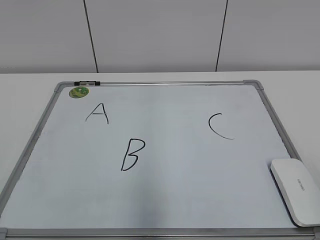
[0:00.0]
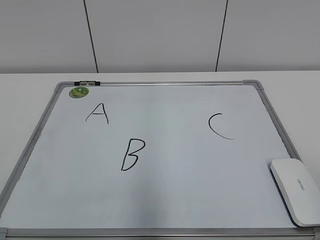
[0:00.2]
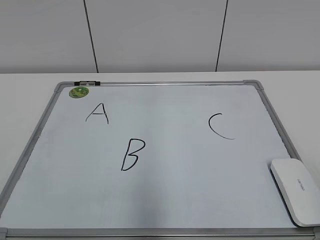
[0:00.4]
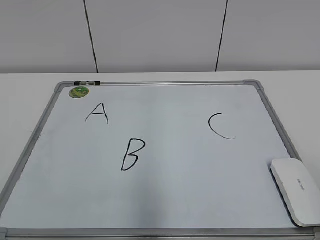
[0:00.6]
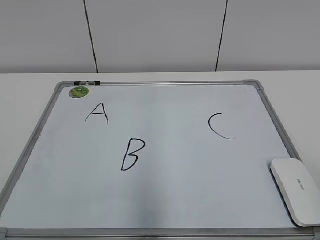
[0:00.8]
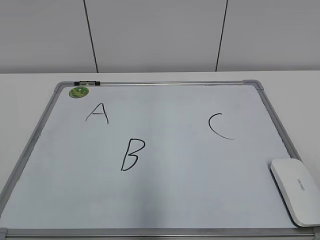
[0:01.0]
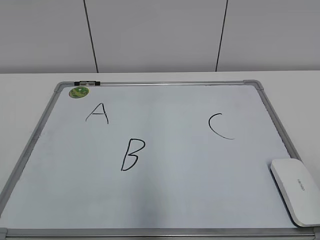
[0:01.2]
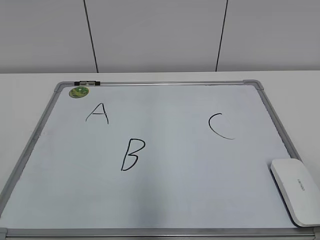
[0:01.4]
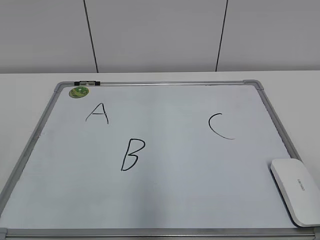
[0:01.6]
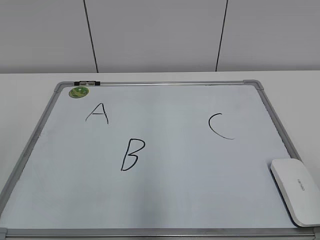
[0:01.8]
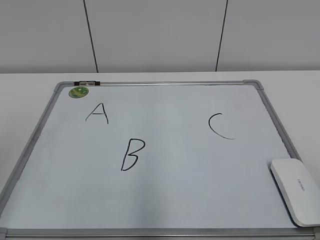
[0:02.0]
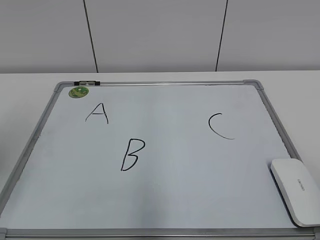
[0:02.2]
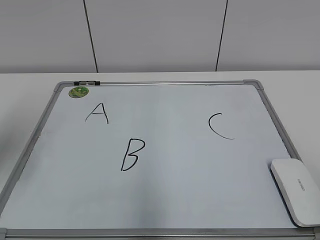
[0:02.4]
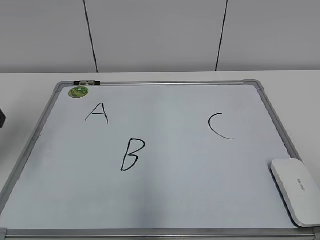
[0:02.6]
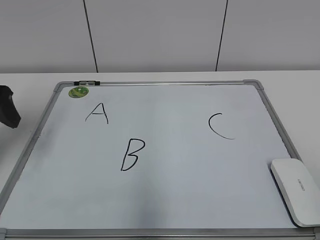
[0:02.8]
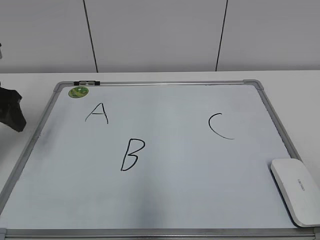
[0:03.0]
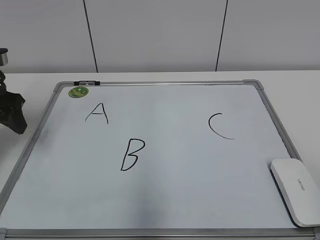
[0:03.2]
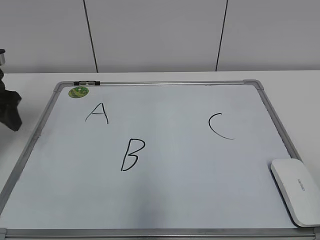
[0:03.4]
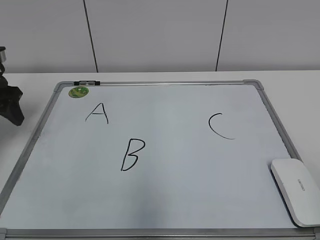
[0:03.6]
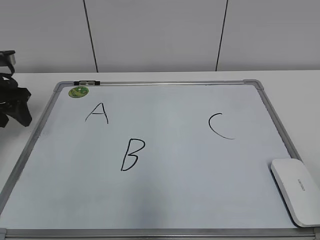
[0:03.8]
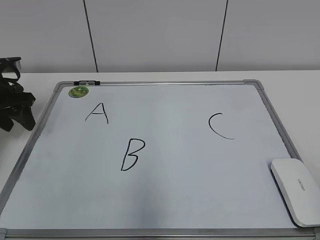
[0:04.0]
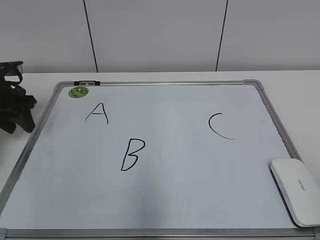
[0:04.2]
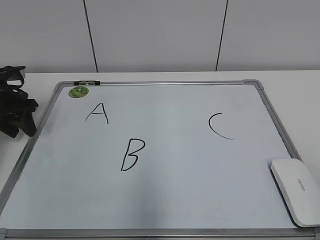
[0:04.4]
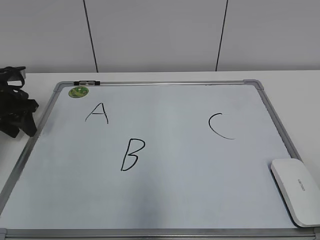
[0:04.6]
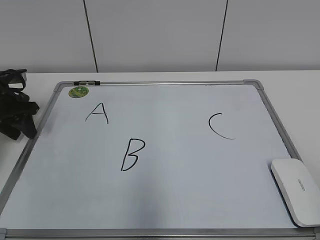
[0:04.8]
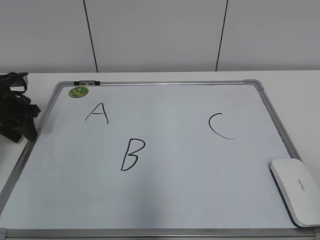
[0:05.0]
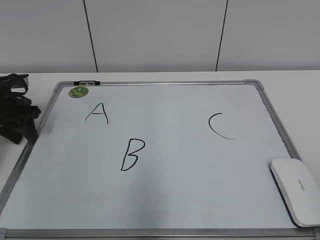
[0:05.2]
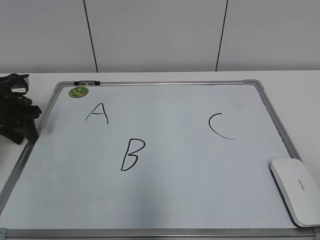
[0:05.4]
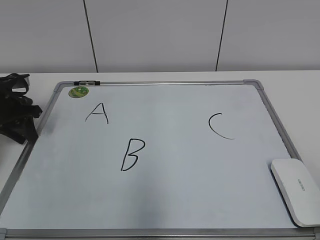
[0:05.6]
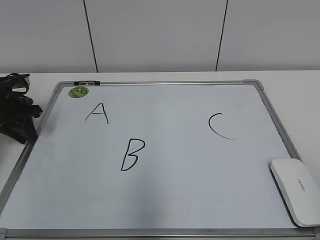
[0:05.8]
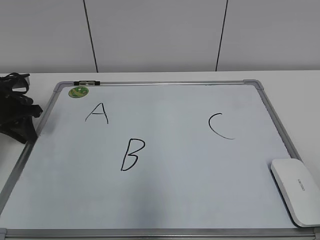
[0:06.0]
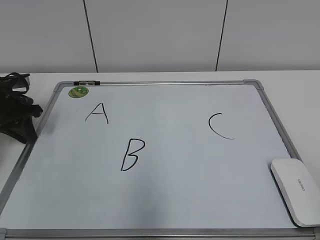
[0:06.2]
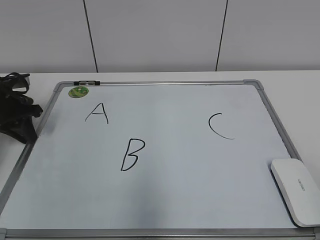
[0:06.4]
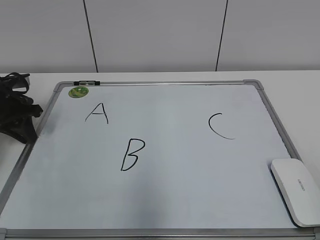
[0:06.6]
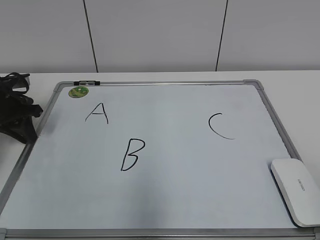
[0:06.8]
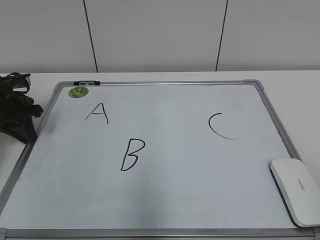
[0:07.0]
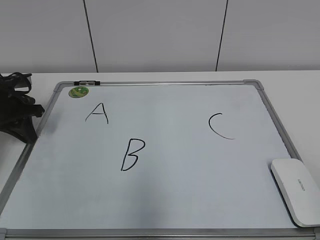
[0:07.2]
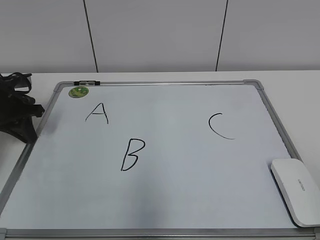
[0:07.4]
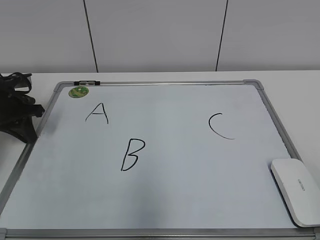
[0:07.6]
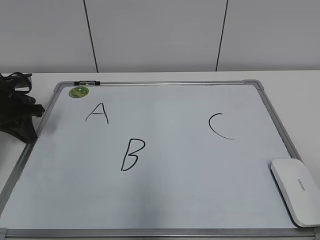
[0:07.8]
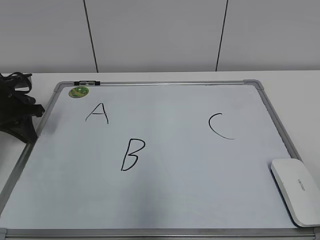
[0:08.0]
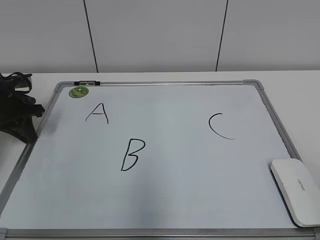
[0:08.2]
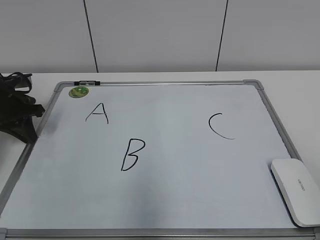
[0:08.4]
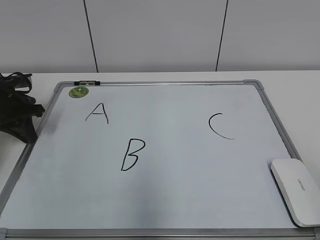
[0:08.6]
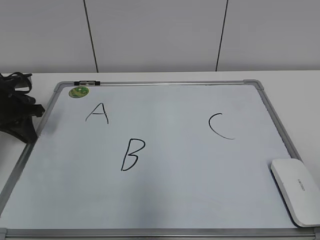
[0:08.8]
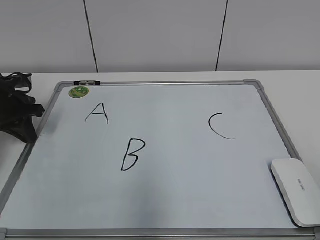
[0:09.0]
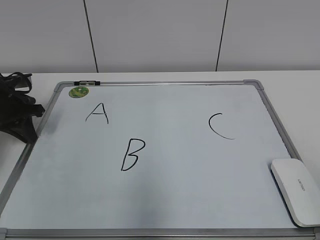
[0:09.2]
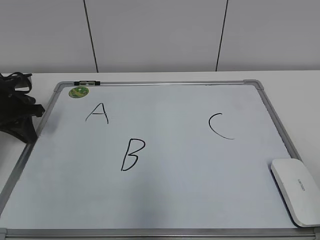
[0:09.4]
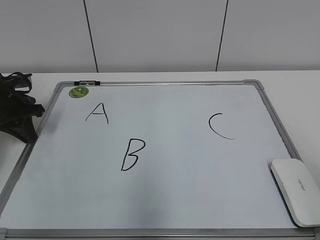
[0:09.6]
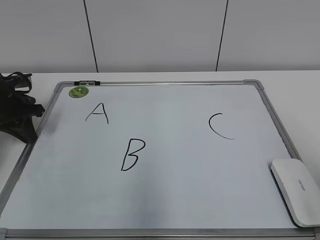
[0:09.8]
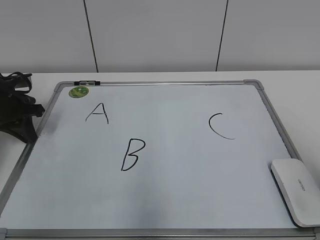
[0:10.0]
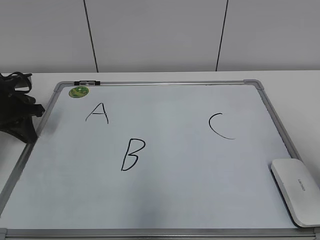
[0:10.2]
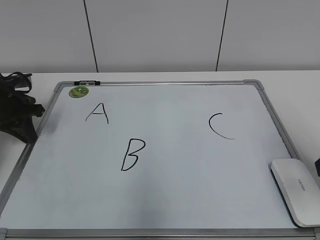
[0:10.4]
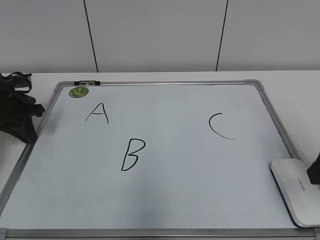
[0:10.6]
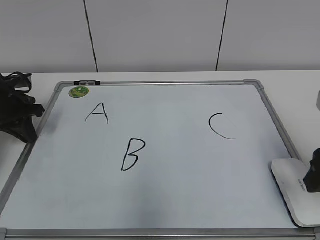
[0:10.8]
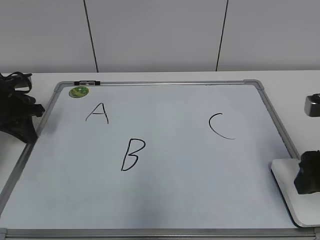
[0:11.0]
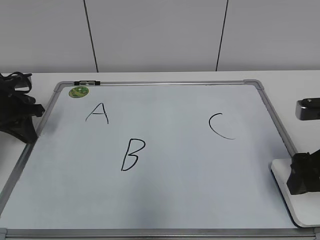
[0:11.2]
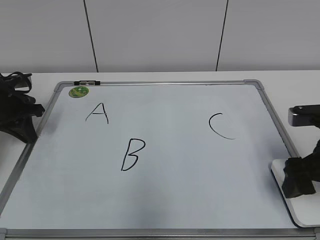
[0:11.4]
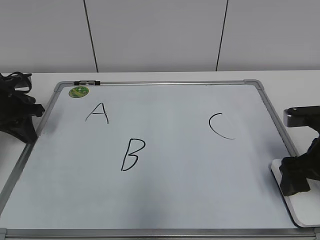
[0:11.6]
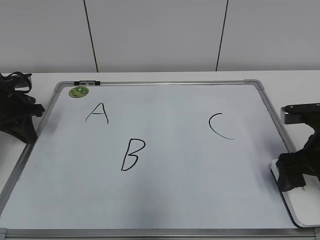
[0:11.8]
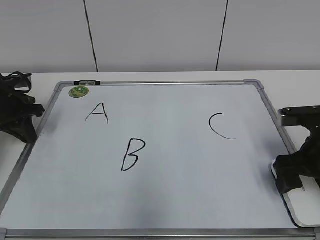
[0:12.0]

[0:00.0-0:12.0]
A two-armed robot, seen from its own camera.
Task of the whole recording: pick up the eraser on the blackboard and erase the letter "B".
Step, 0:00.0 to 0:07.0: Hold the drawing board steady with your left hand.
0:01.6 to 0:03.0: The left gripper shifts some 30 cm forward.
0:03.0 to 0:04.4: The left gripper goes roughly 10 cm forward and downward.
0:04.4 to 0:06.0: The left gripper closes up.
0:06.0 to 0:09.0: Both grippers stay put.
0:09.0 to 0:10.4: The right gripper is displaced forward by roughly 20 cm.
0:10.4 to 0:12.0: The right gripper moves downward and forward, some 15 cm, and opens.

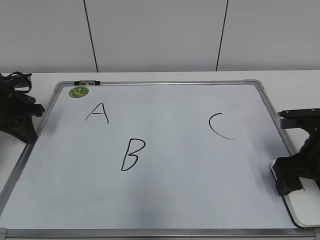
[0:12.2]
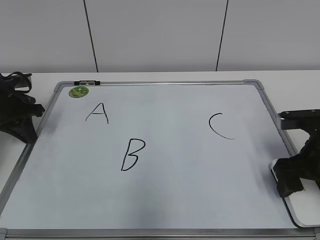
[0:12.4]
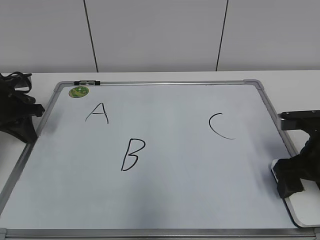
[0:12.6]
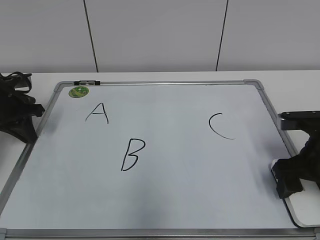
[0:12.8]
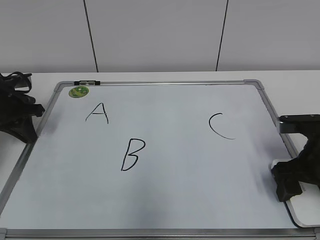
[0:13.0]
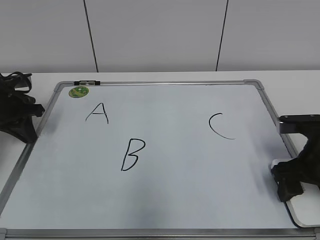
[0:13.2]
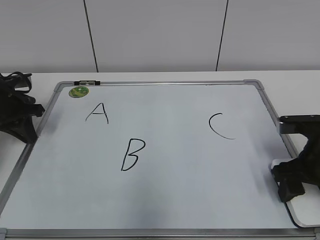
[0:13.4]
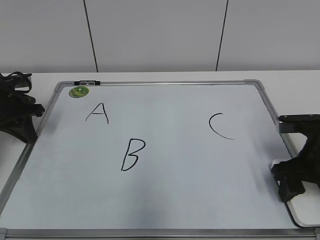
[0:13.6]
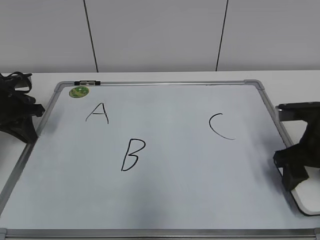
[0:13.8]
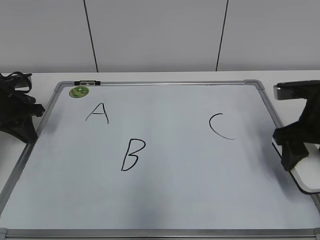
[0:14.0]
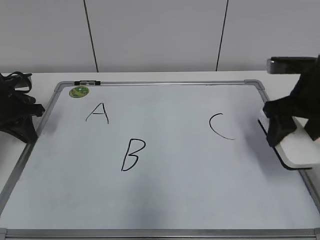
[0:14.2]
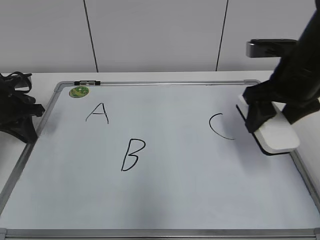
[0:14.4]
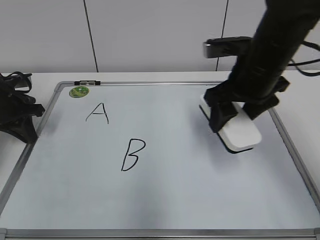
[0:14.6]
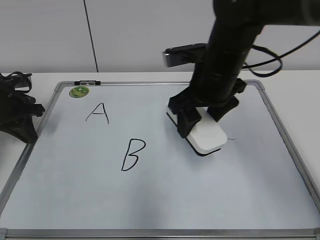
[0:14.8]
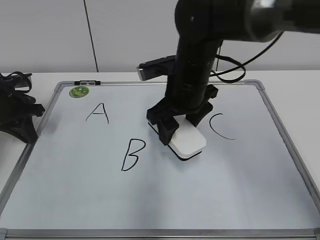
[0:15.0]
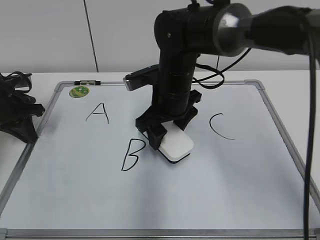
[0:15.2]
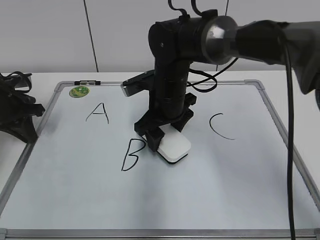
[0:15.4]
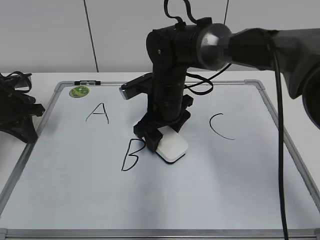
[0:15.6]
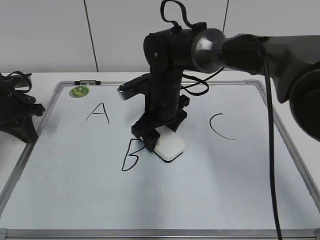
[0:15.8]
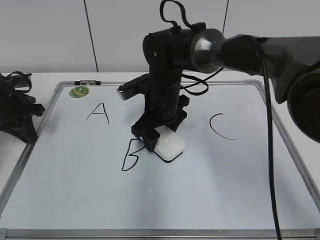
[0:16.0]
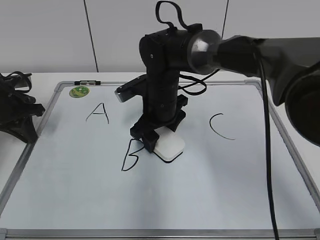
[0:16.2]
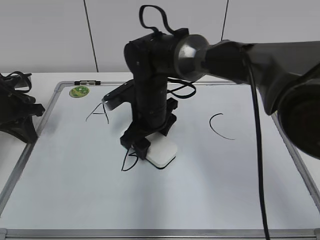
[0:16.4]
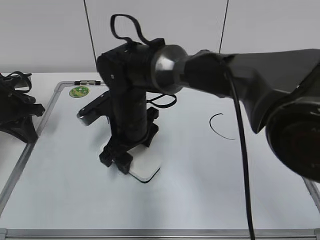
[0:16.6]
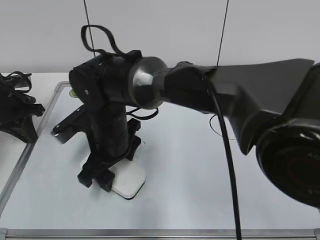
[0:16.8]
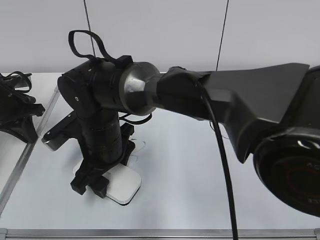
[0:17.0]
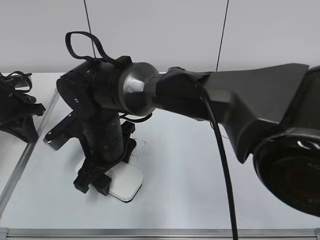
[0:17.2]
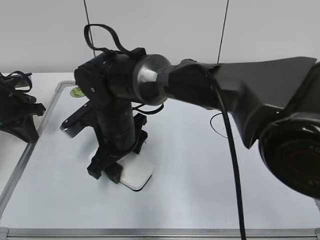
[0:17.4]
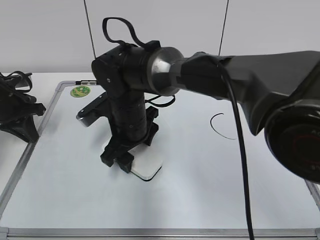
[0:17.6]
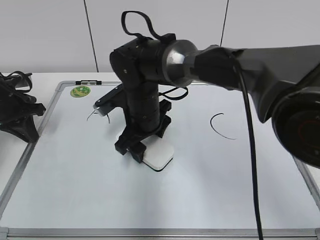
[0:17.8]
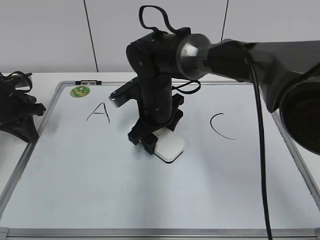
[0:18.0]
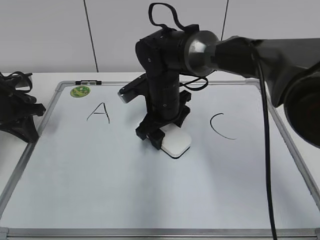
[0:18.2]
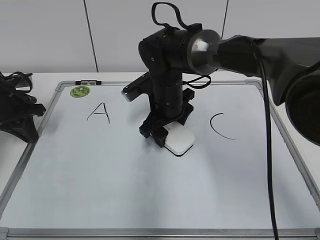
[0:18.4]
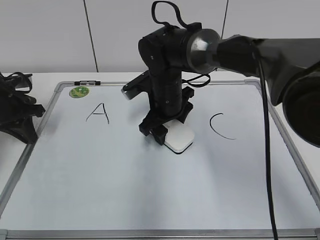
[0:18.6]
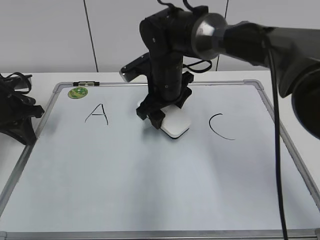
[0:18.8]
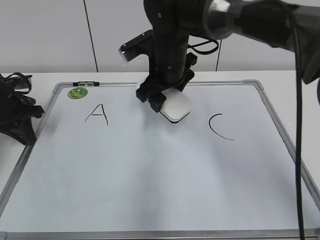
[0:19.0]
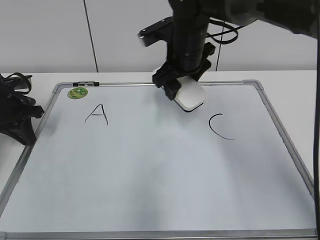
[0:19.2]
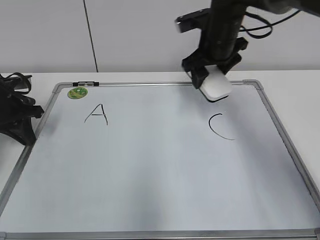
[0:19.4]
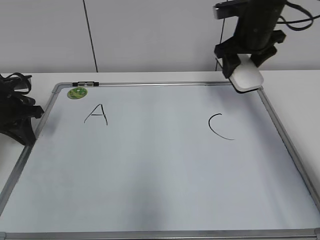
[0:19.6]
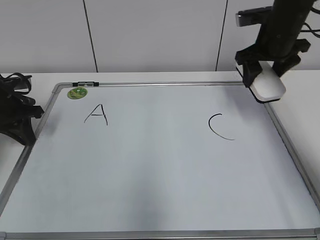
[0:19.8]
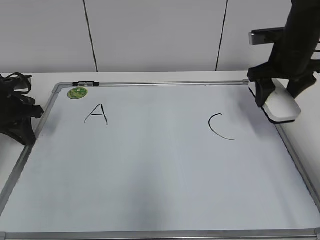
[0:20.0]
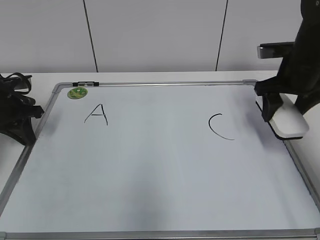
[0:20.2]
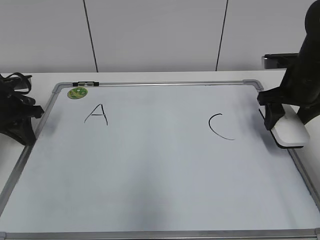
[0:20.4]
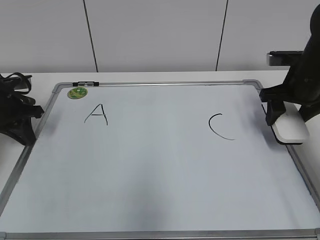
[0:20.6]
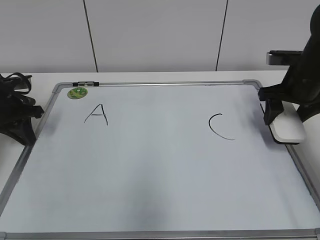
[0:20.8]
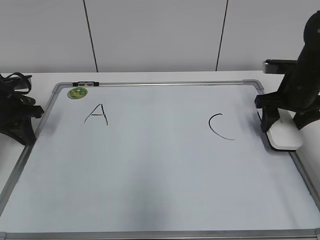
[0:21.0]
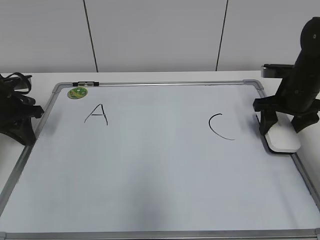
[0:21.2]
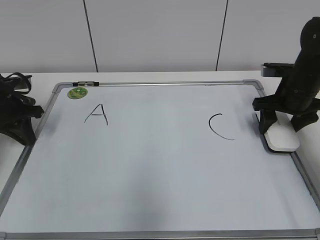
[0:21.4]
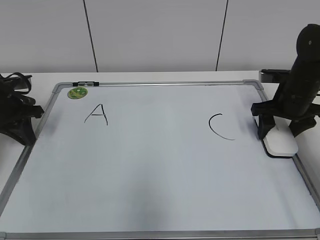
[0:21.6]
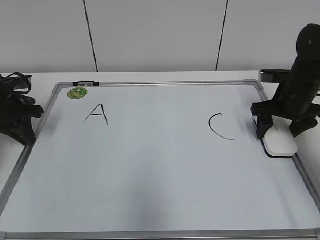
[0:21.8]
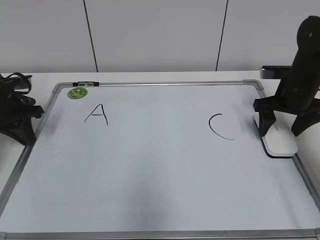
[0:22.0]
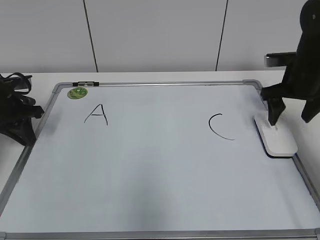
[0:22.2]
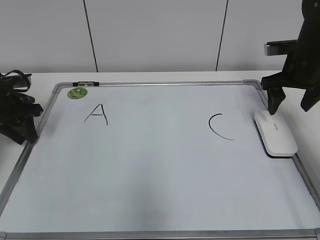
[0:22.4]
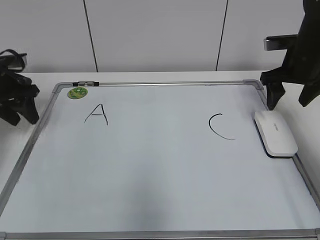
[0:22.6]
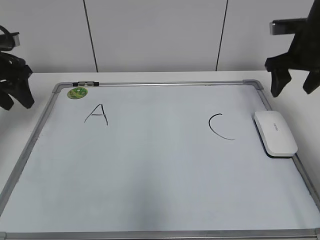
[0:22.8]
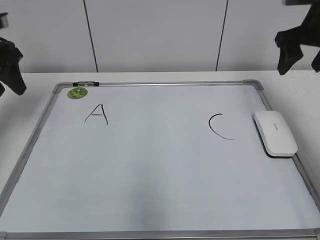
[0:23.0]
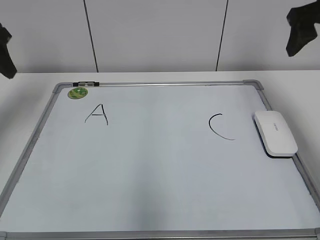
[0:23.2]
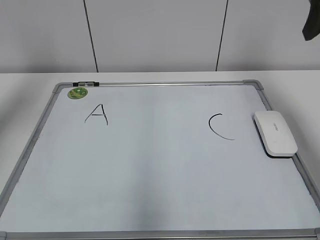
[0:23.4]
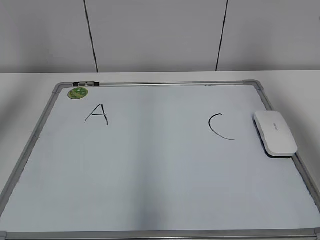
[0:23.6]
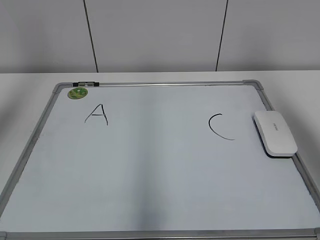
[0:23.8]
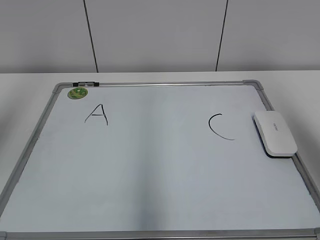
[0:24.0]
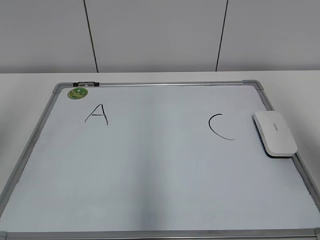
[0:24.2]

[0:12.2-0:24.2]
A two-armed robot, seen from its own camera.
Task of the whole recording: pick up the eraser on the blackboard and erase the letter "B".
Step, 0:13.6 to 0:18.4: Erase the letter B with your right hand.
Step, 0:18.6 to 0:21.8: Put down the eraser with your right hand.
0:12.2 to 0:13.8: The right gripper closes its fingers.
0:13.8 to 0:15.2: The right gripper moves to the left and forward, about 25 cm.
0:15.2 to 0:16.6: The right gripper moves to the left, some 10 cm.
0:16.6 to 0:18.2: The right gripper goes about 5 cm to the right.
0:18.2 to 0:19.8: The right gripper travels to the right and upward by about 25 cm.
0:19.8 to 0:21.2: The right gripper is displaced downward by about 10 cm.
0:21.2 to 0:22.6: The right gripper moves upward, roughly 5 cm, and opens up; the left gripper opens its fingers.
0:22.6 to 0:24.2: The grippers both shift backward and upward by about 30 cm.
